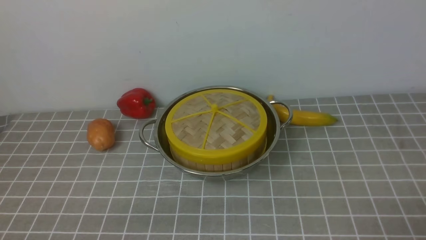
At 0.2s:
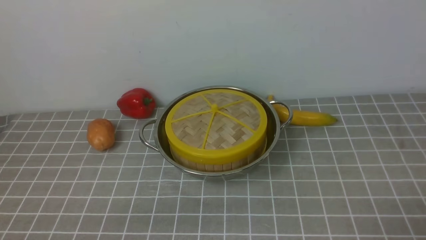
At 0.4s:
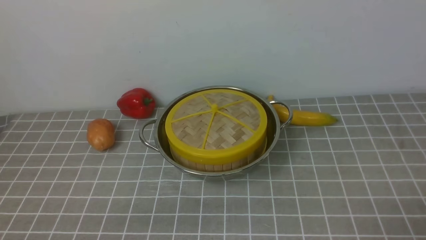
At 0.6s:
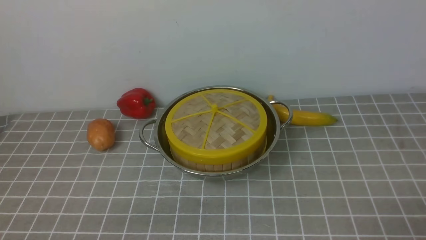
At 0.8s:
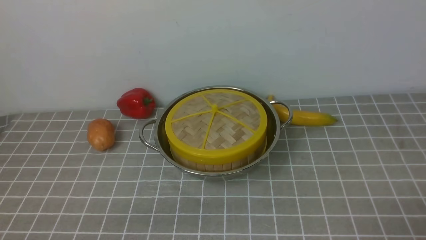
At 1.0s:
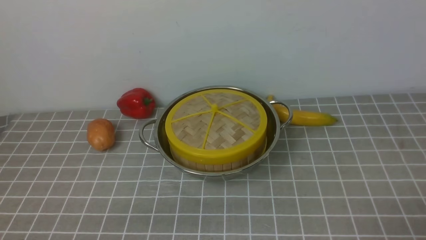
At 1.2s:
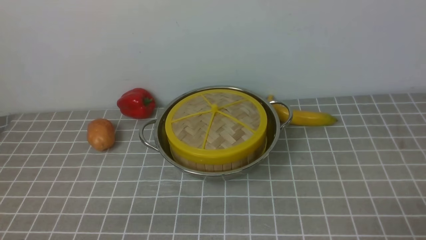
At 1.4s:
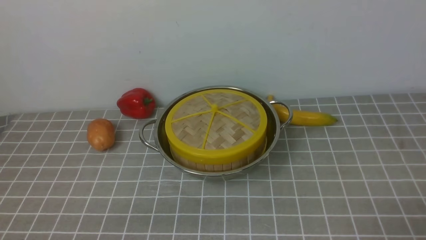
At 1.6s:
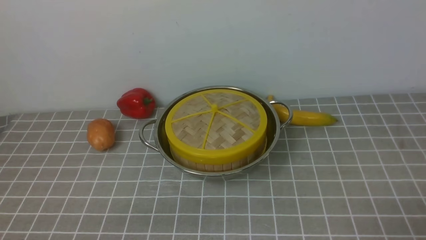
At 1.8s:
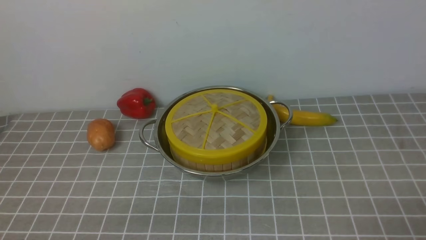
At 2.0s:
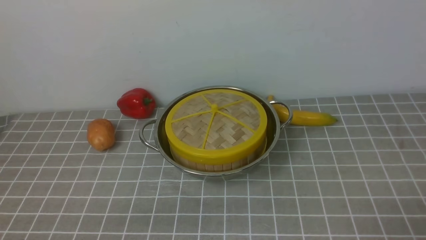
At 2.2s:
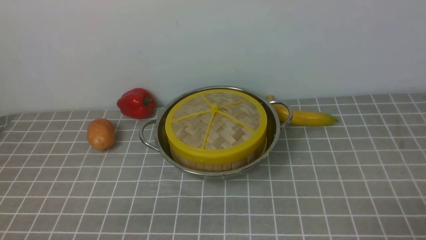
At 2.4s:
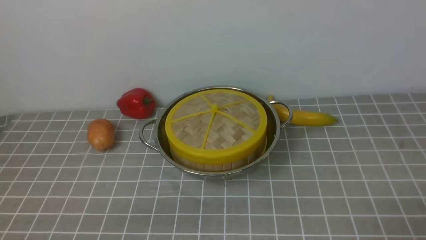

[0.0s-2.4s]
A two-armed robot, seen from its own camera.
Task of the whole recording: place the steamer in the pot on the grey tablecloth, and put the lid on the steamer.
1.2s to 2.4s: Both grippers stay put.

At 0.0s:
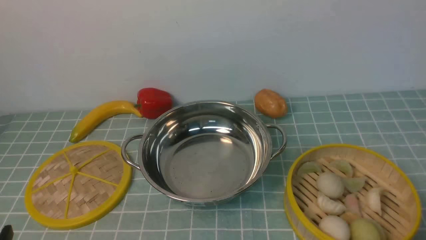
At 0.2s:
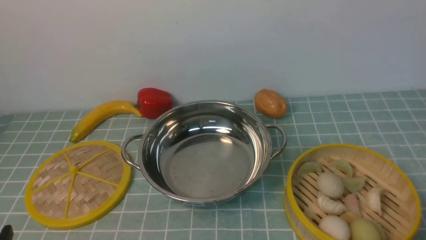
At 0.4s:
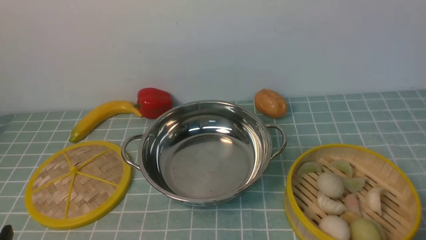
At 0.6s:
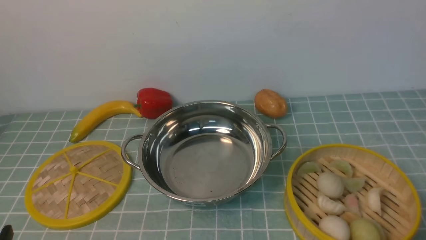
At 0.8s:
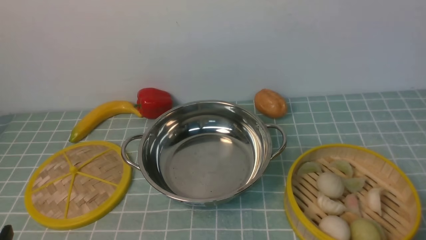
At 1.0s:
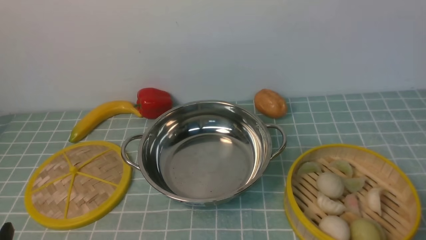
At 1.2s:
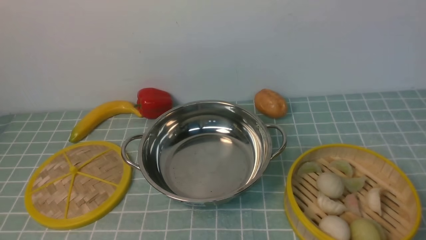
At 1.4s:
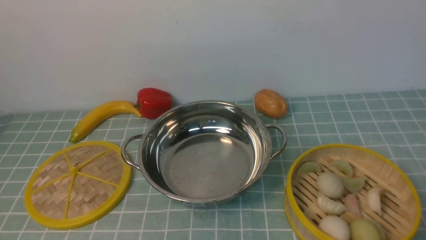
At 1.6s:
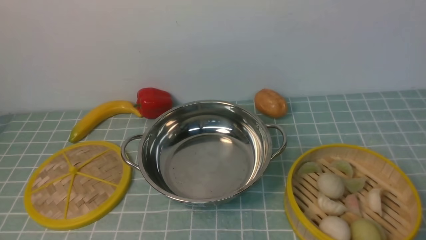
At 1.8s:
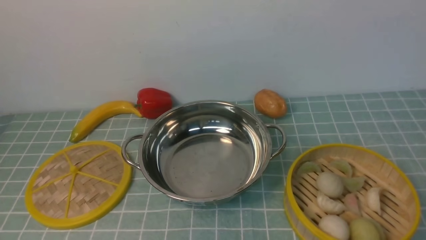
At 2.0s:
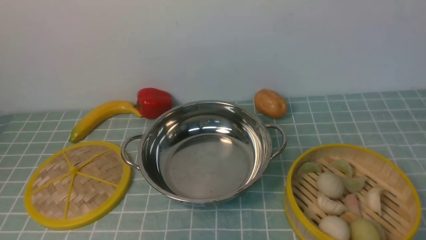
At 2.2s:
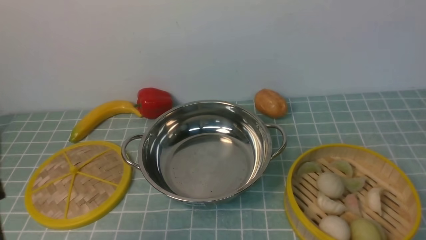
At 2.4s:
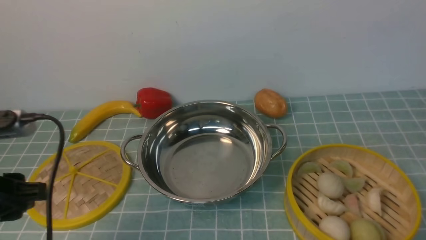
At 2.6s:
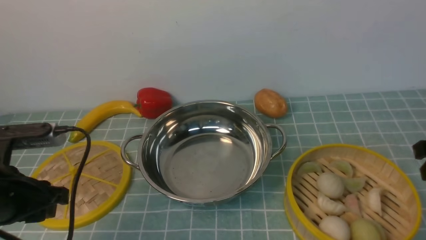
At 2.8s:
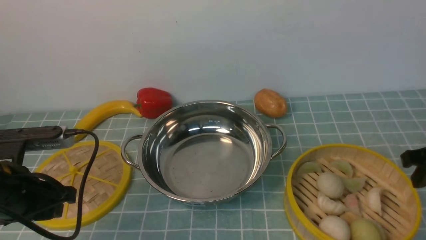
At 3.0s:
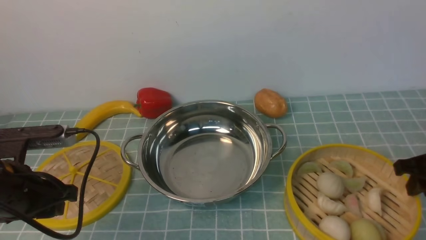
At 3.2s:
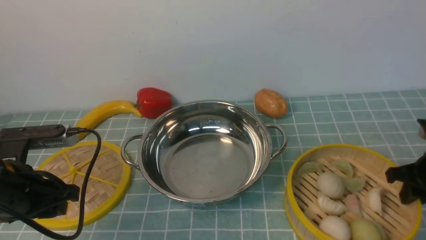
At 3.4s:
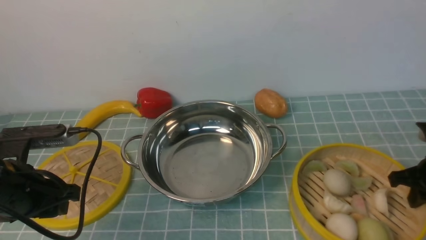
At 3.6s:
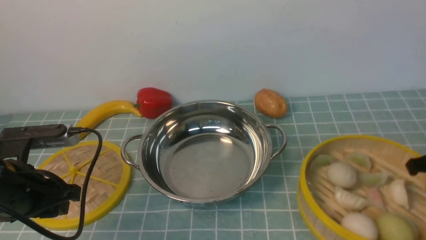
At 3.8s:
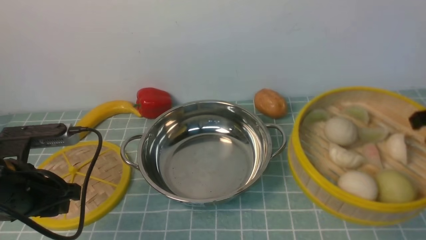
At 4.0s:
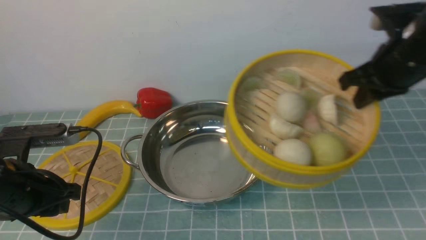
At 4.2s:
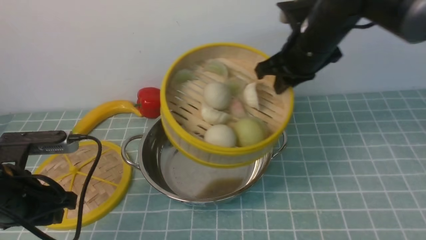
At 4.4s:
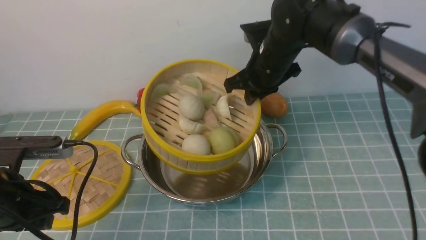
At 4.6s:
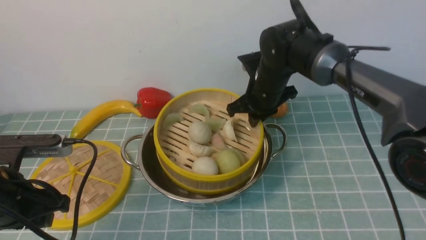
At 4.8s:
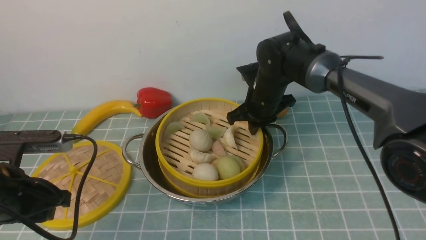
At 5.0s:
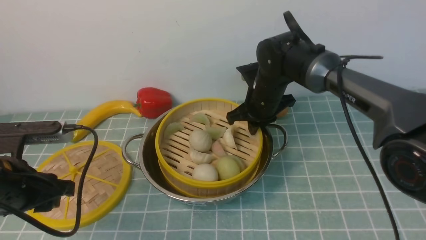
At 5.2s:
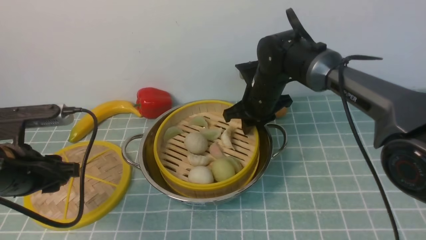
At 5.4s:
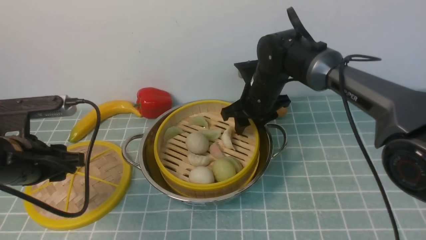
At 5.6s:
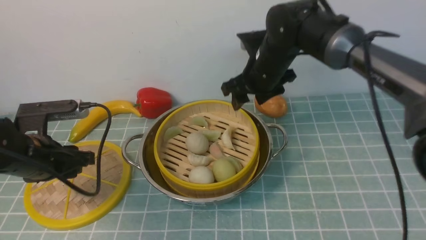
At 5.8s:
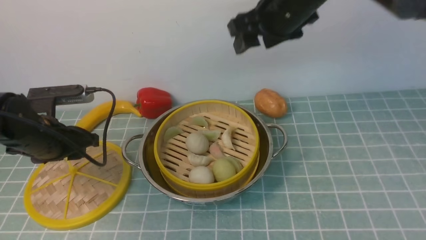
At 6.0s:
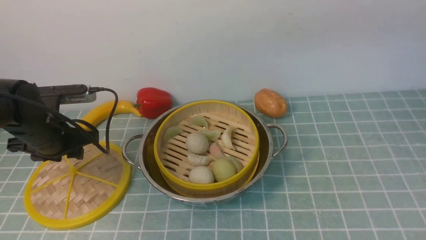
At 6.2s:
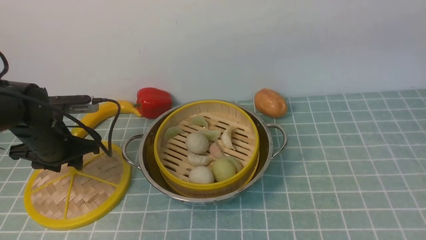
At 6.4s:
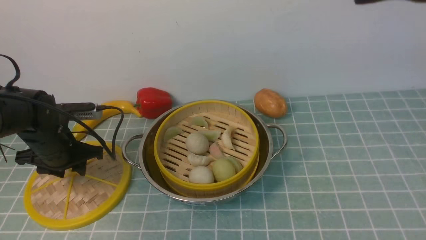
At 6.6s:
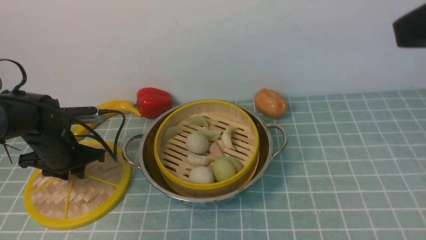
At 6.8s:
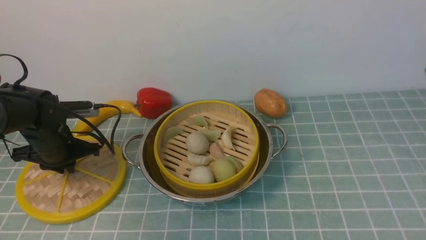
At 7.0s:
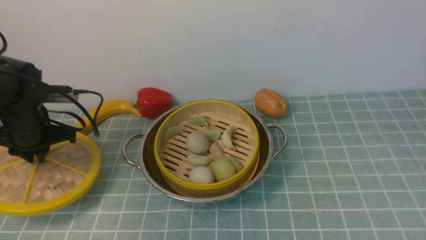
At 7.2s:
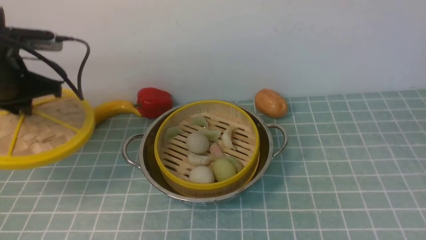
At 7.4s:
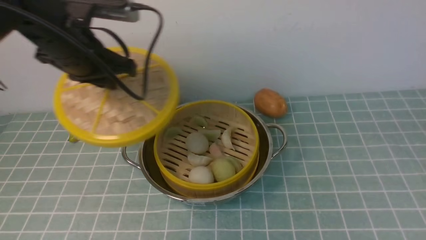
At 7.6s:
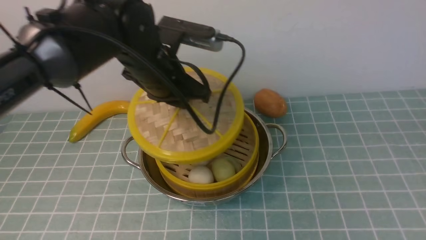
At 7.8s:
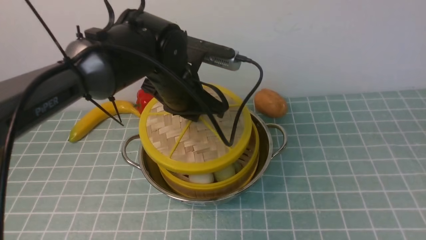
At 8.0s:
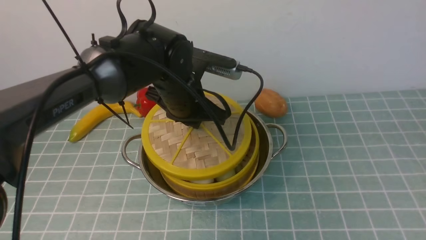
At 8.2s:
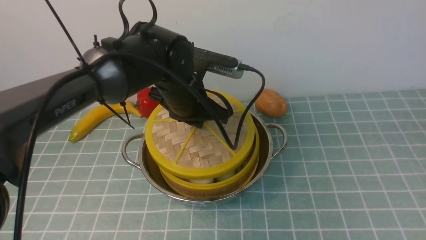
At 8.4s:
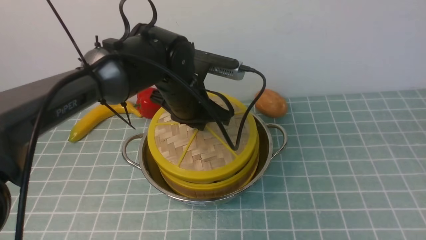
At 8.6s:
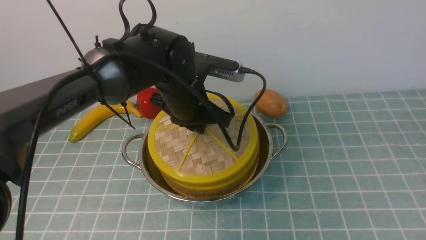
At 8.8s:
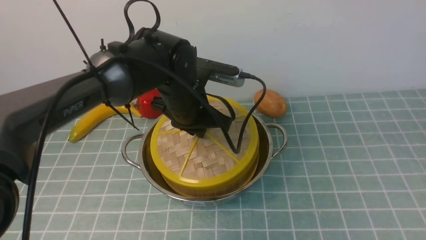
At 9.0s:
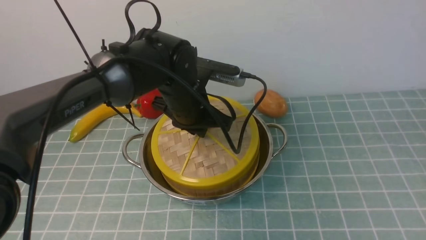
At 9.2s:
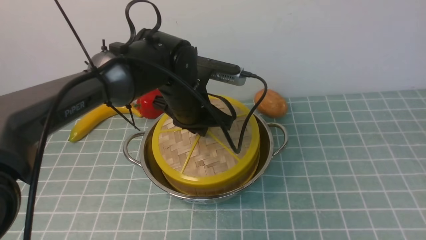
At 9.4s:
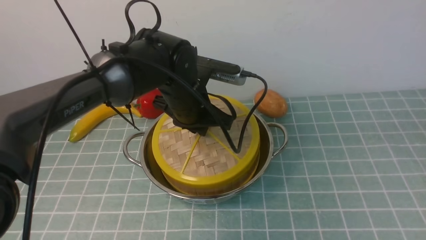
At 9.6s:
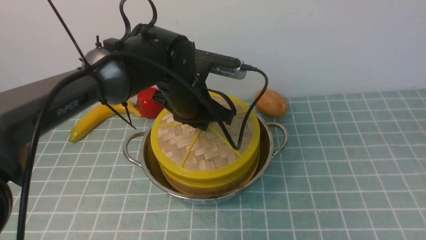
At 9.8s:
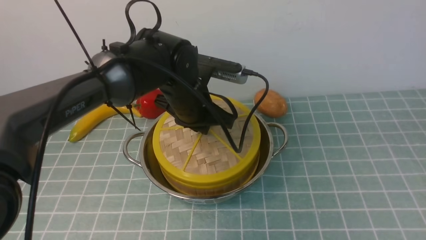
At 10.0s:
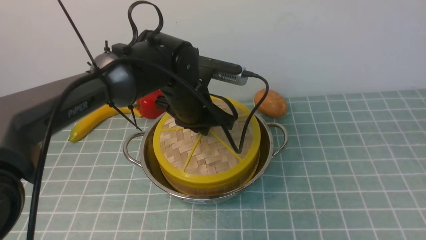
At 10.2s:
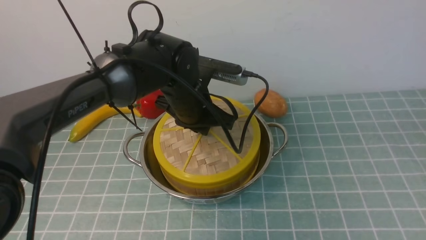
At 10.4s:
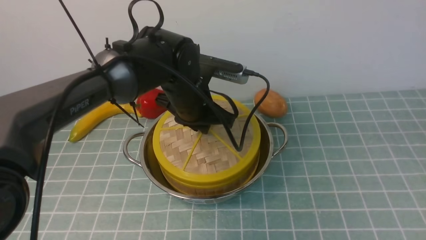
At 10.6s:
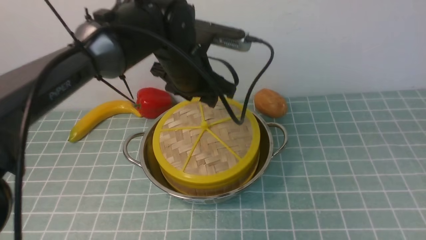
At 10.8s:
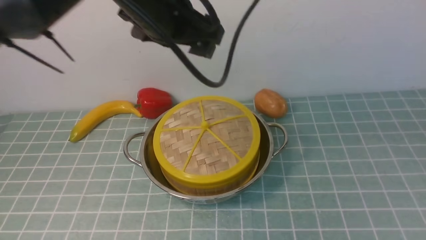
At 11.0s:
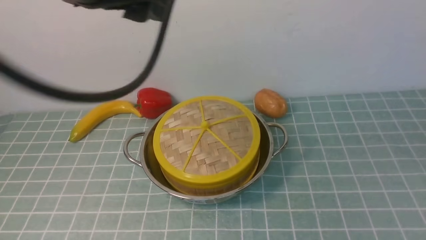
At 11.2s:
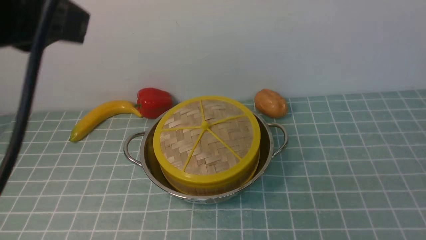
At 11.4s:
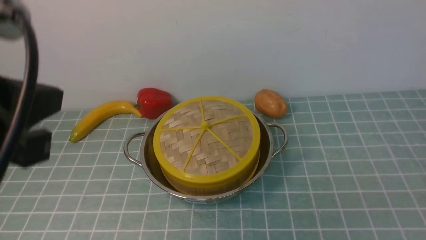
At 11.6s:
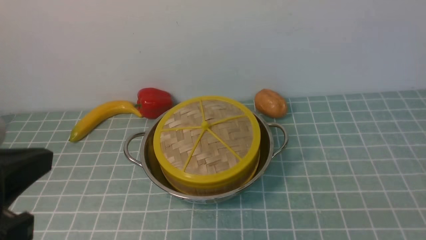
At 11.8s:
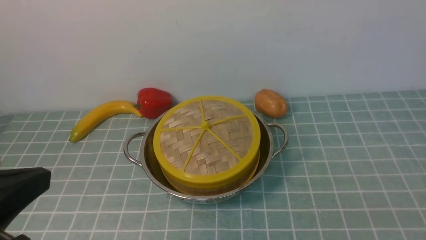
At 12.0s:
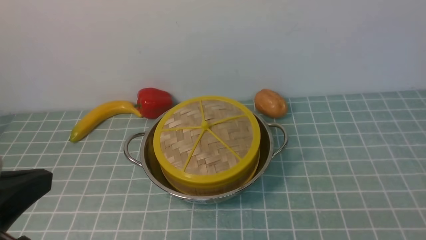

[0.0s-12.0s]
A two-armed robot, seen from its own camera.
Task of the whole recording: place the steamer in the pot on the blue tablecloth, and put the lid on the steamer.
Step, 0.0s to 4.0s: use the right arm to lift the steamer closest to it.
Step, 4.2s to 5.8s: use the right arm to put the steamer into the iron steamer pot in the middle.
Step, 6.0s to 7.0s: use the left arm to lift the lid of the steamer.
Step, 7.2s to 10.8s: use the left arm to place the steamer lid on the steamer.
1.6s to 3.0s: The two grippers go approximately 20 cm forward.
3.0s to 4.4s: The right gripper travels to the left and forward by approximately 25 cm, and closes.
4.4s to 6.0s: The right gripper shifts some 15 cm upward and backward, and opens its fingers, while the left gripper travels forward by some 10 cm.
6.0s to 7.6s: The left gripper moves to the right and upward, roughly 20 cm, and closes up; the right gripper is displaced backward and to the right by roughly 30 cm.
7.6s to 9.0s: The left gripper goes approximately 10 cm to the right and downward.
9.0s to 10.4s: The two grippers keep their place.
10.4s to 12.0s: The right gripper goes roughly 15 cm downward and backward, and closes up. The left gripper travels backward and to the left by approximately 35 cm, and closes up.
